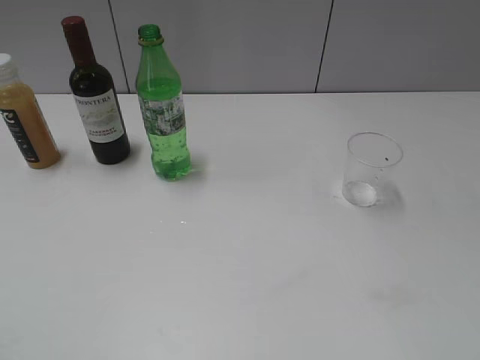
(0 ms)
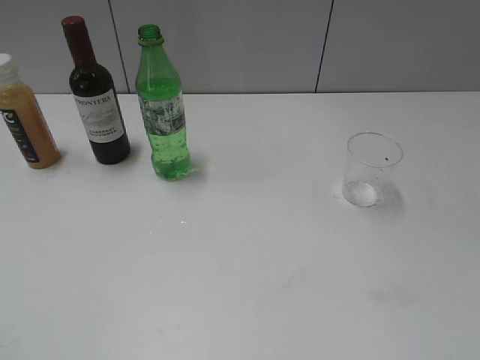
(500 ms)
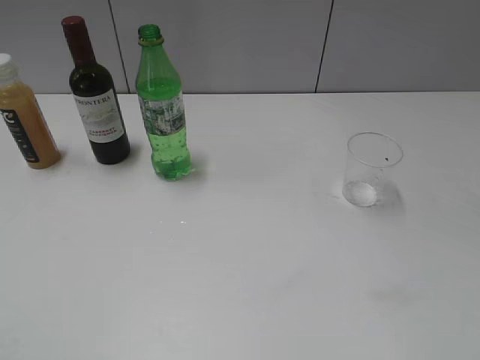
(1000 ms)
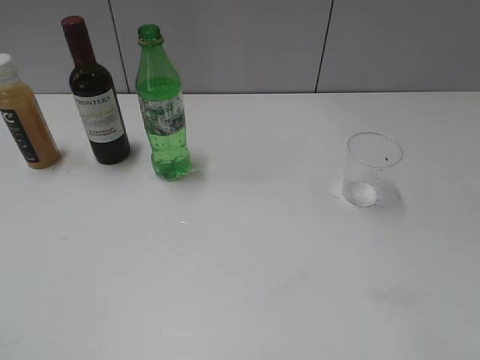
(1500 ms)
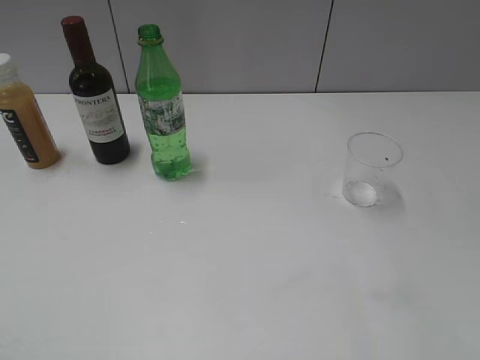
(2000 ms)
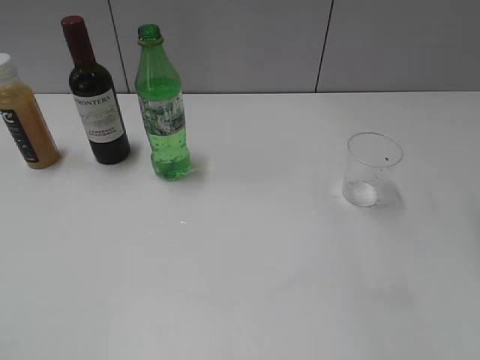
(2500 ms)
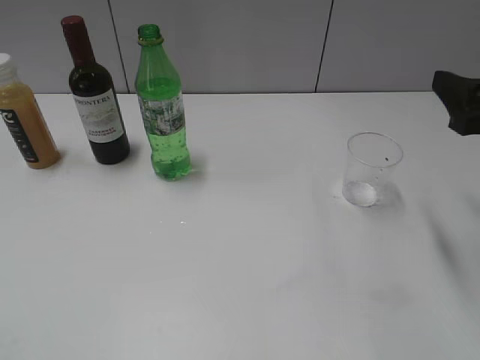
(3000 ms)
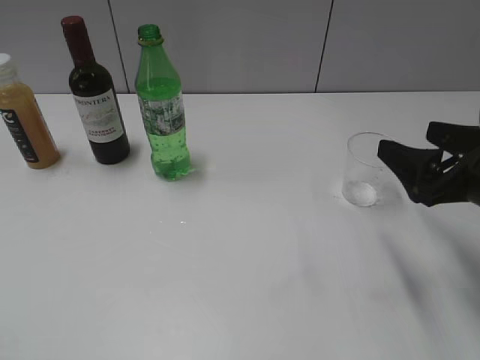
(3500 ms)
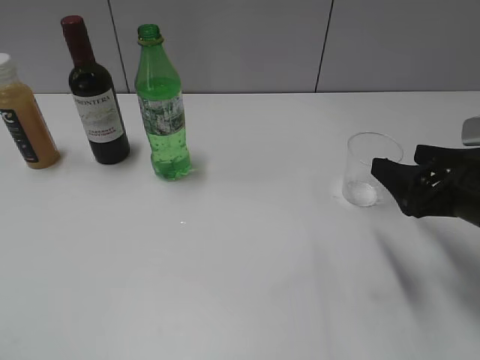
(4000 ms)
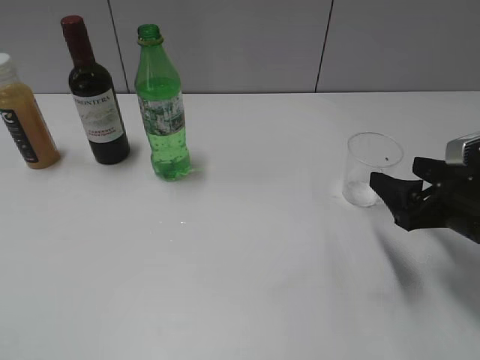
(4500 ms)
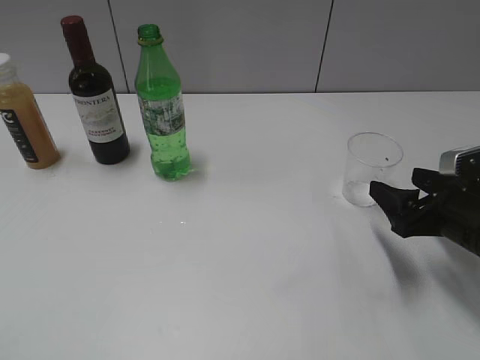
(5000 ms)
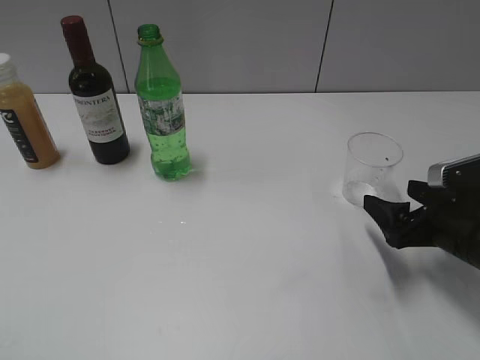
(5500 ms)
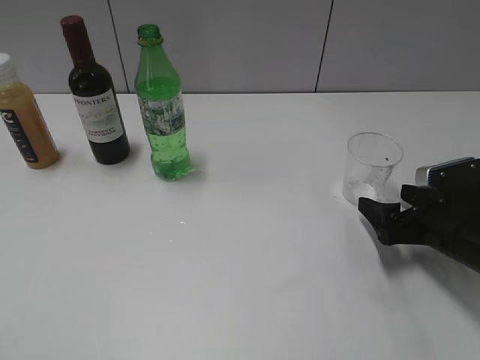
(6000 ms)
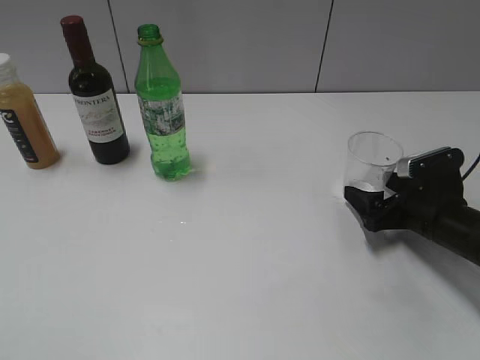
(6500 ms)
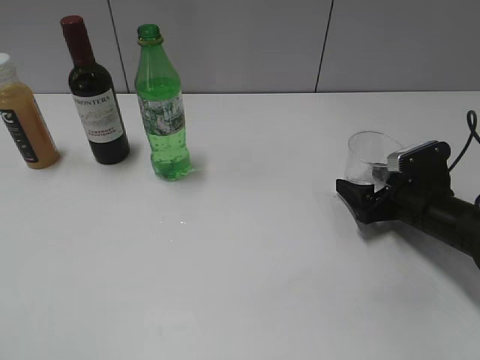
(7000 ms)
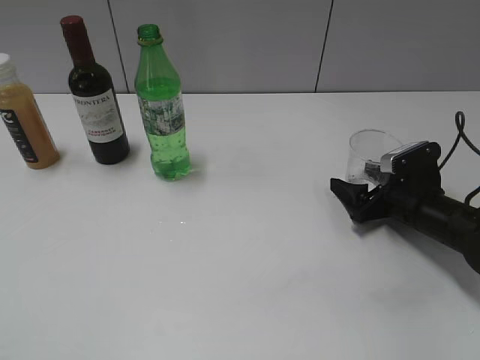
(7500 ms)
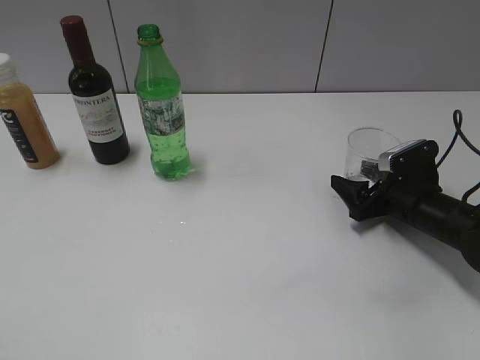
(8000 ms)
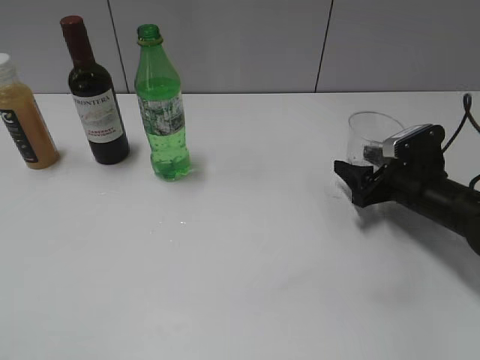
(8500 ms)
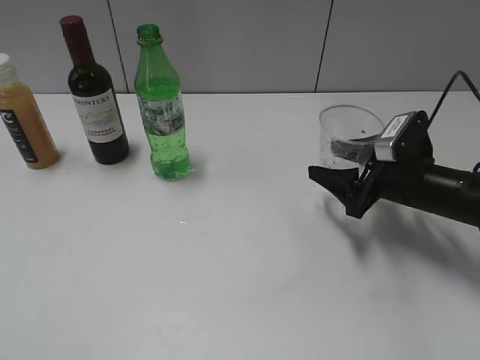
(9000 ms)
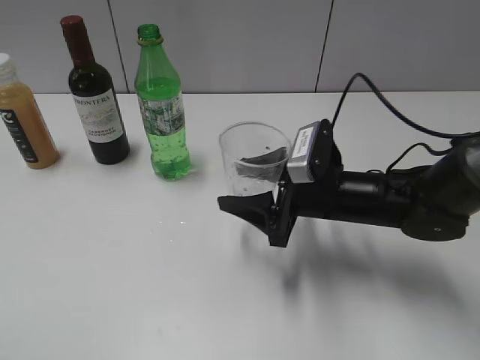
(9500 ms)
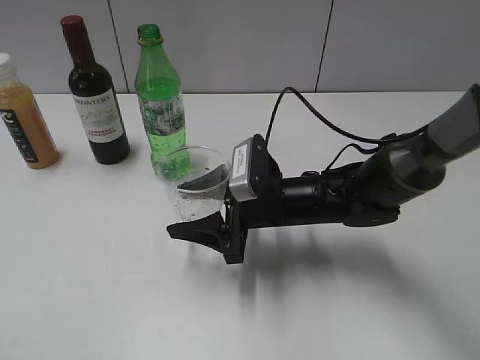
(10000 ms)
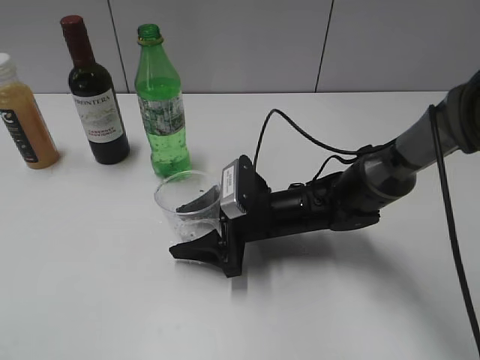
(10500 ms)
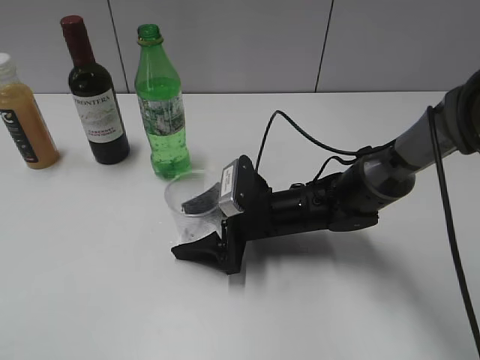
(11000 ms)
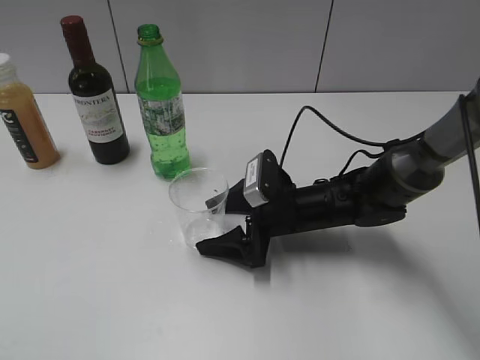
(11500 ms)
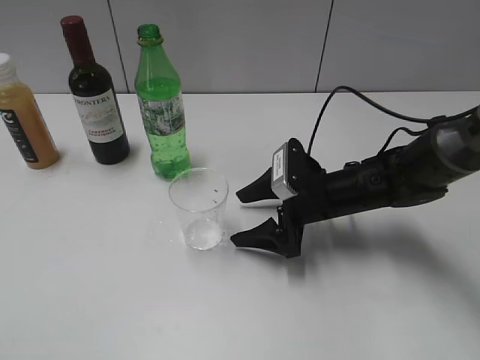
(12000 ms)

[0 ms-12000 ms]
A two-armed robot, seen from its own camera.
Step, 0 ms to 8000 ms: Grasp the transparent cup with right gripper.
Step, 8500 ms to 11500 ms: Place the transparent cup on the table with right gripper.
2000 ms to 4000 ms: The right gripper shifts some 20 cm downward and forward.
4000 ms to 6000 ms: The right gripper shifts some 10 cm downward.
6000 ms to 8000 ms: The right gripper moves forward, about 5 cm, and closes.
8000 ms to 10000 ms: The right gripper travels to the left by approximately 20 cm.
10000 ms to 12000 ms: The right gripper is displaced to the right by about 5 cm, and opens its fingers.

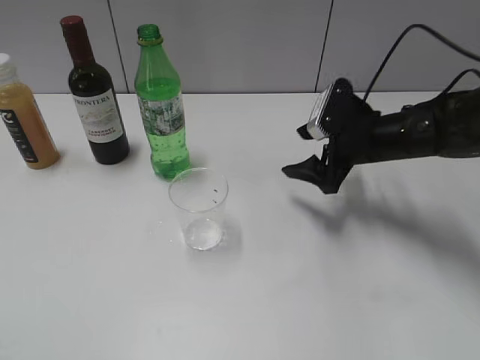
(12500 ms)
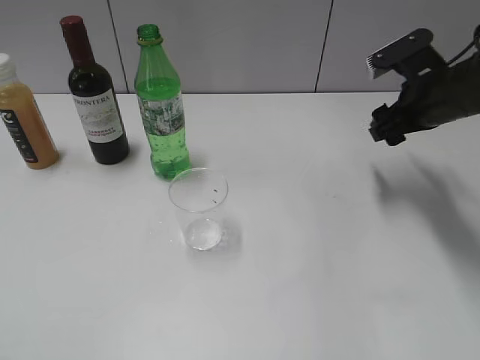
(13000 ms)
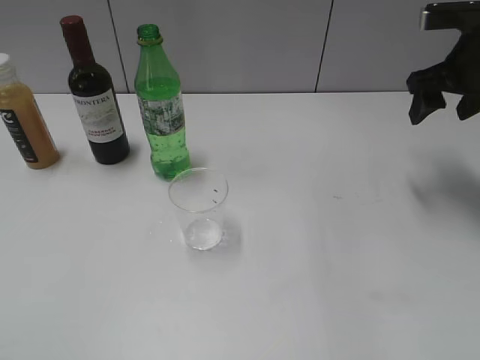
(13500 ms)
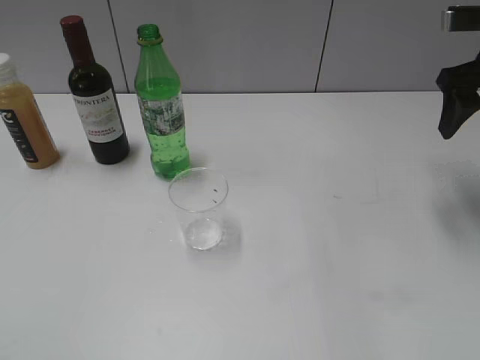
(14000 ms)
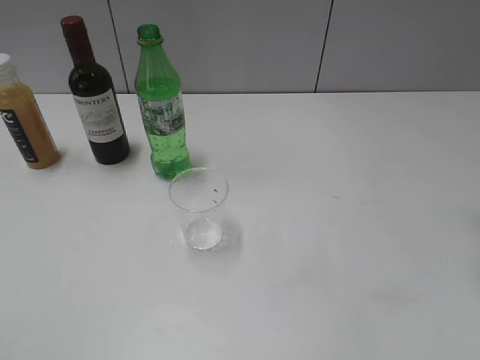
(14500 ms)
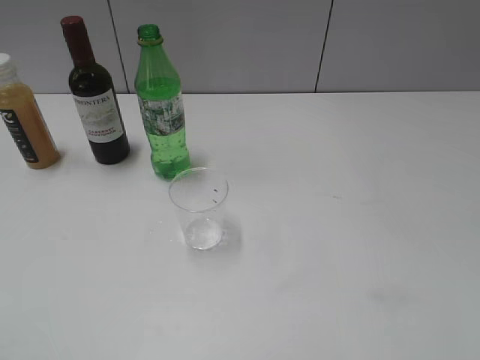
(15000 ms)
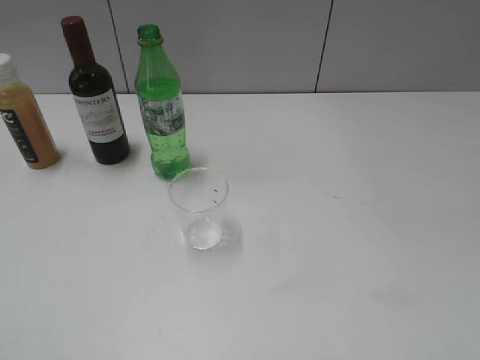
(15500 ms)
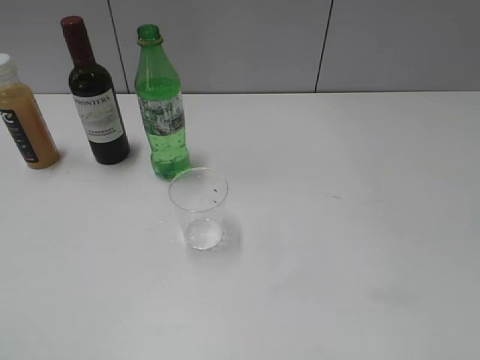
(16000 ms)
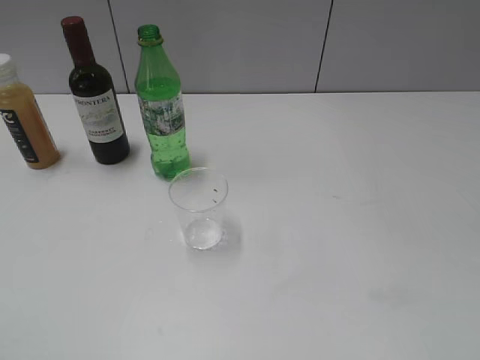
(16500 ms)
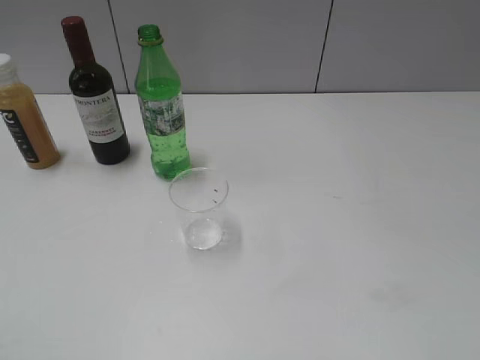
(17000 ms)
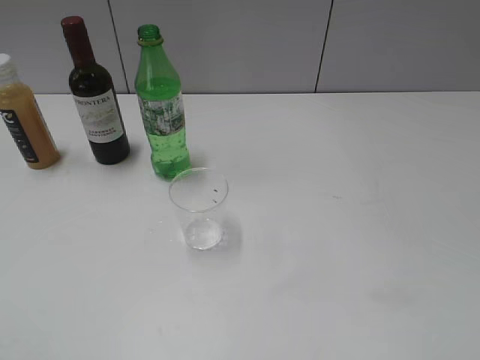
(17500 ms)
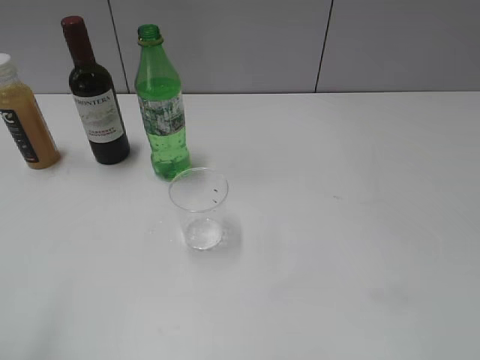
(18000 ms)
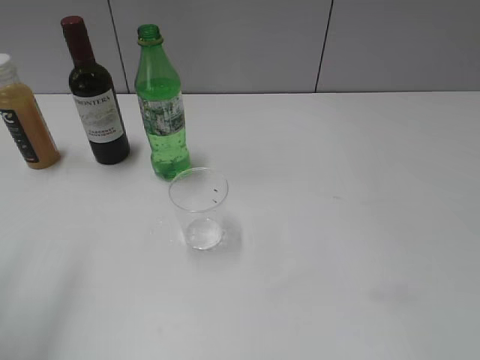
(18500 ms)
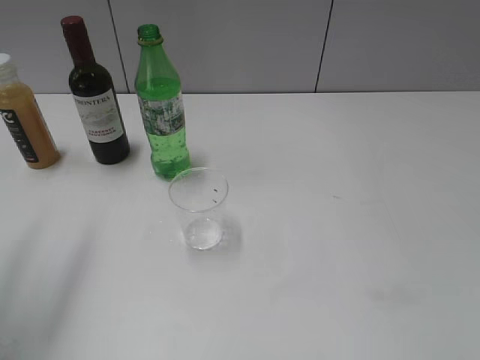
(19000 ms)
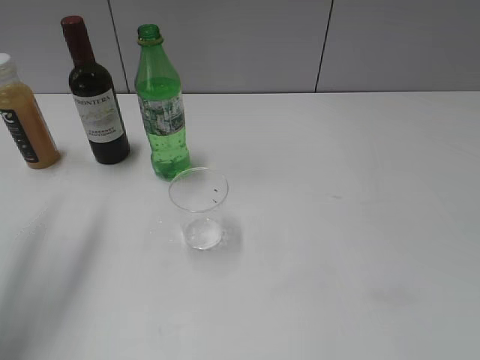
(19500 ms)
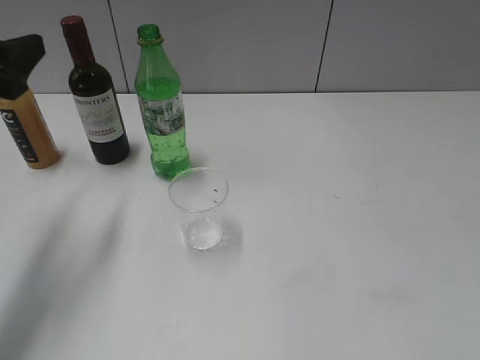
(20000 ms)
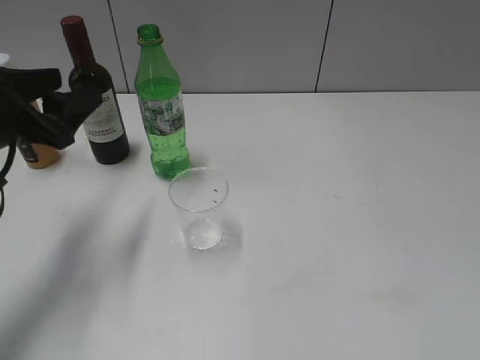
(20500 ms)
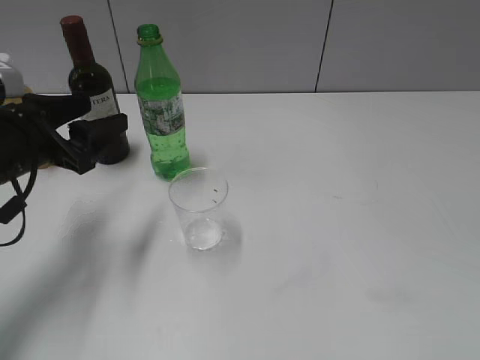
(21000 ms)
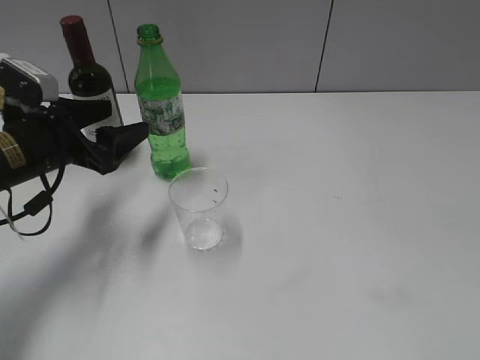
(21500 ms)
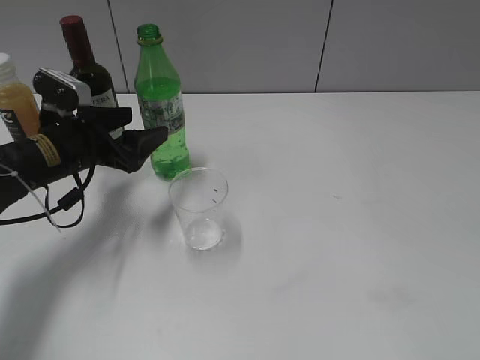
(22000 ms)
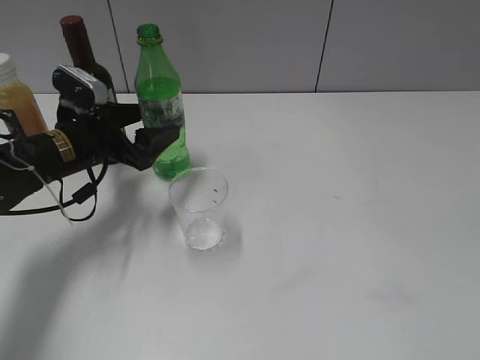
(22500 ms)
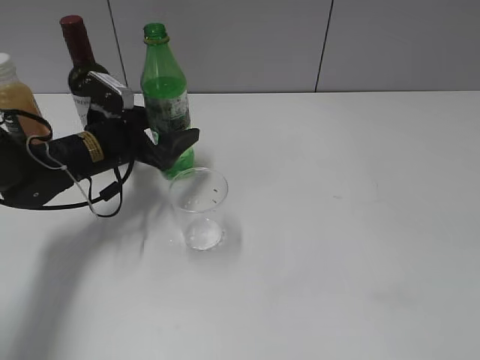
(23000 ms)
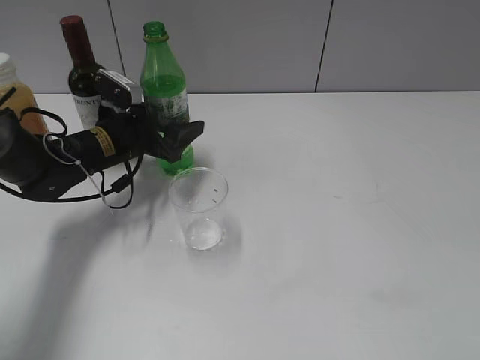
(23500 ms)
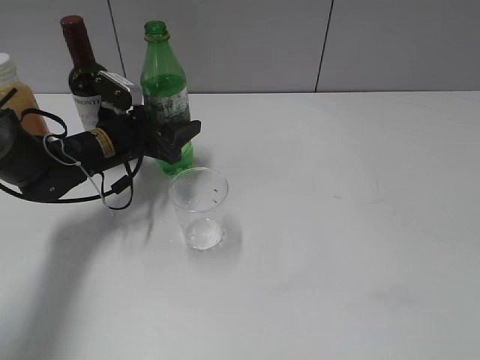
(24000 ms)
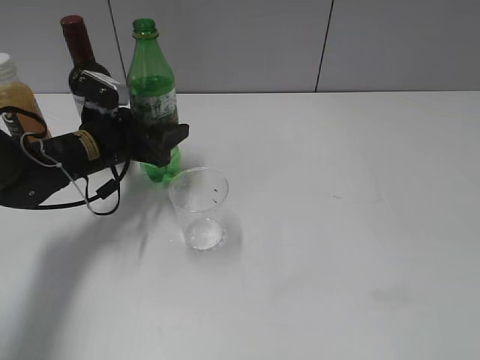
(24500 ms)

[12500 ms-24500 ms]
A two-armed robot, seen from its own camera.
Step, 12500 ms to 24000 ms: Grasp the bottle with sprite with left gripper.
12500 ms to 14500 ms: The right gripper goes approximately 25 cm upward, to the right and backward, and closes up.
16500 ms to 18500 ms: The left gripper shifts roughly 15 cm forward.
18500 ms to 20500 ms: The left gripper shifts some 20 cm downward and forward.
20500 ms to 22500 ms: The left gripper goes roughly 15 cm downward, forward and to the right.
22500 ms to 24500 ms: The left gripper closes.

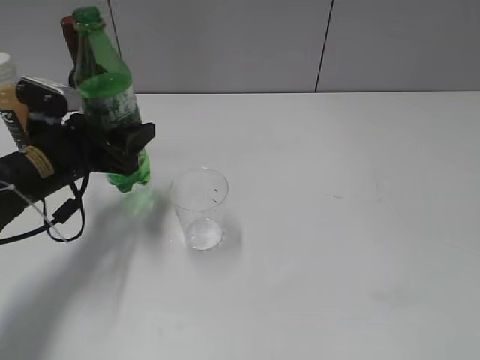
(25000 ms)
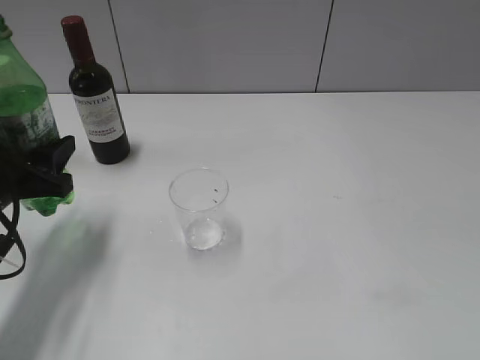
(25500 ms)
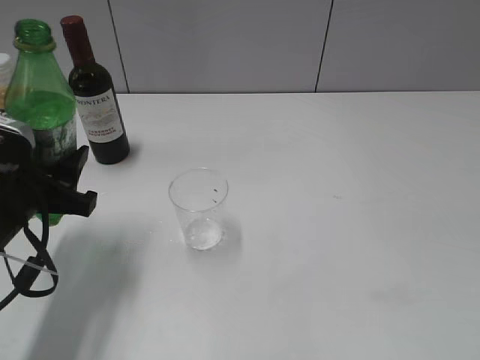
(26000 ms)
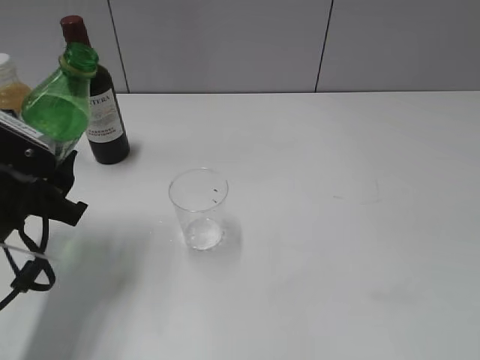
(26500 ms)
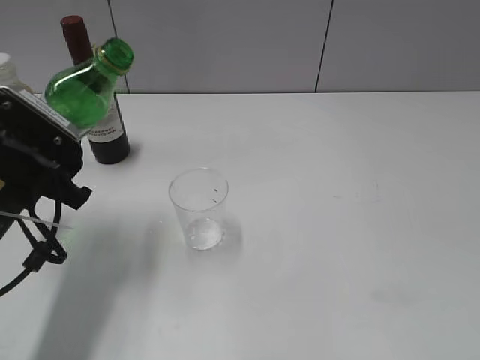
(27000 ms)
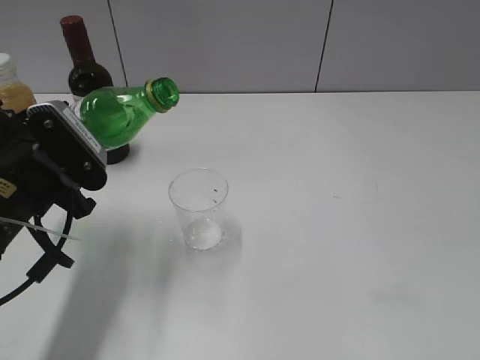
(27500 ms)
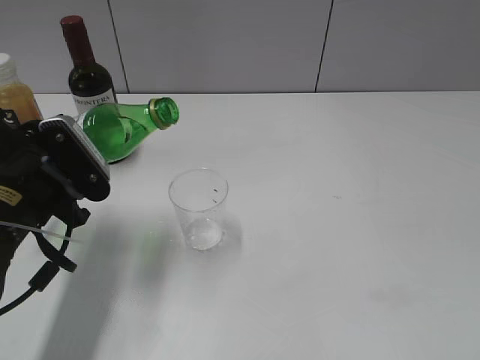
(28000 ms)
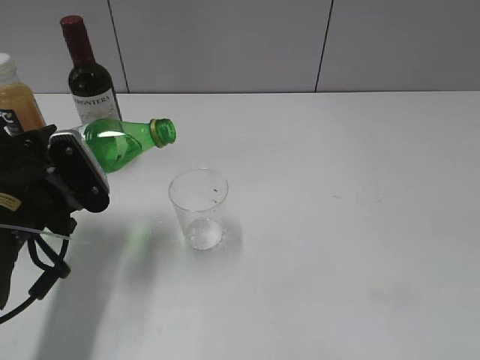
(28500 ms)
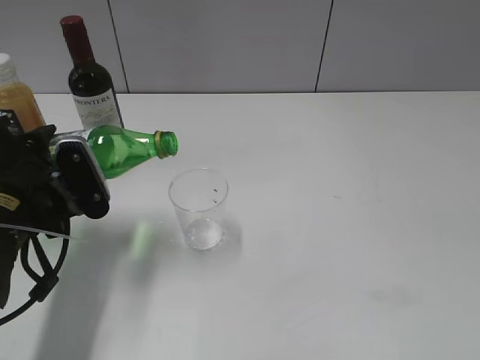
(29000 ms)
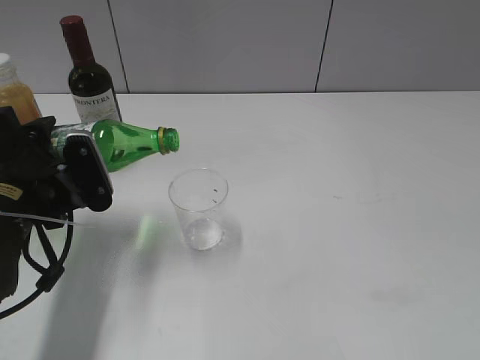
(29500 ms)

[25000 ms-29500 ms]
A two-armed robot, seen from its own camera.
25000 ms to 27000 ms: The left gripper moves backward, approximately 10 cm.
